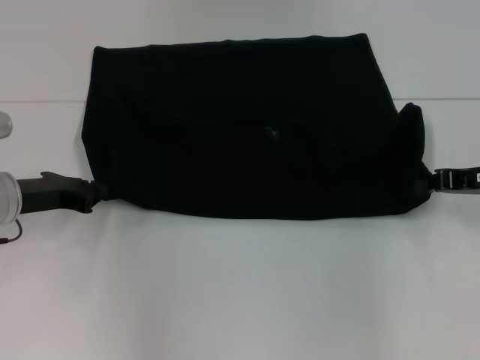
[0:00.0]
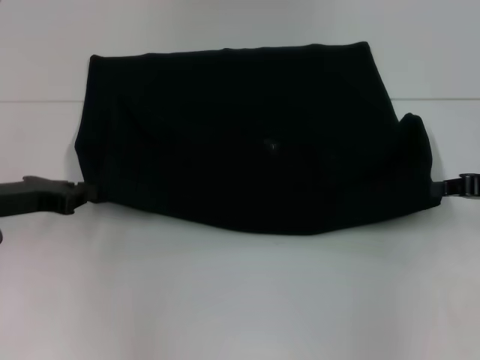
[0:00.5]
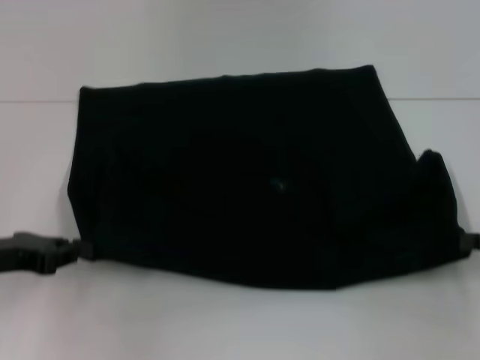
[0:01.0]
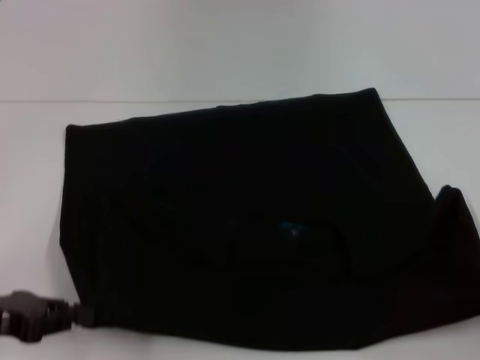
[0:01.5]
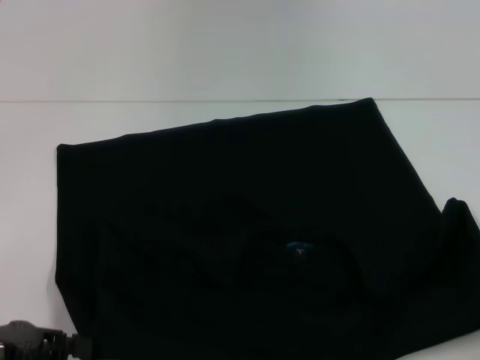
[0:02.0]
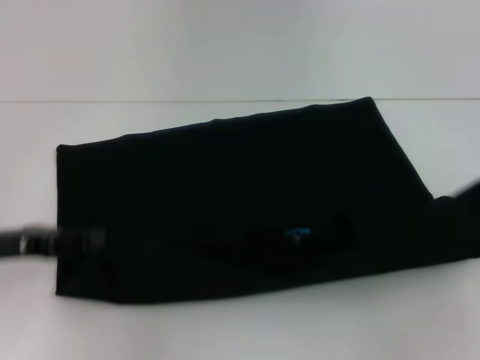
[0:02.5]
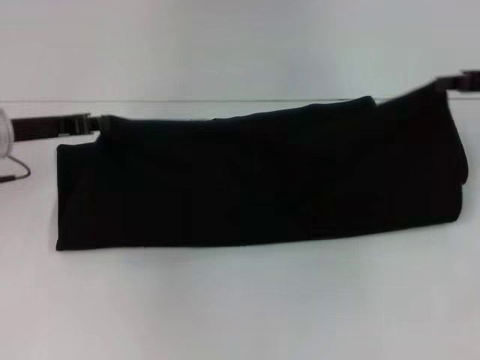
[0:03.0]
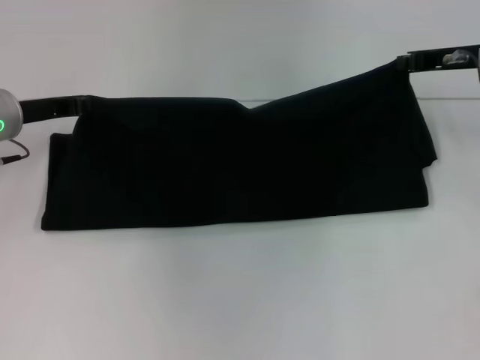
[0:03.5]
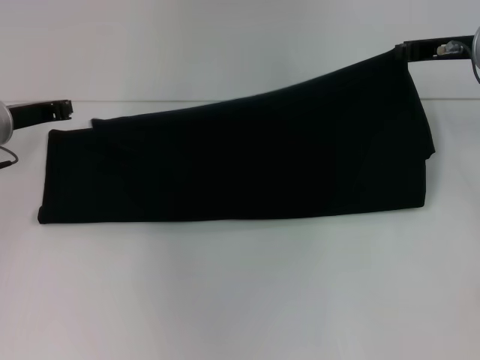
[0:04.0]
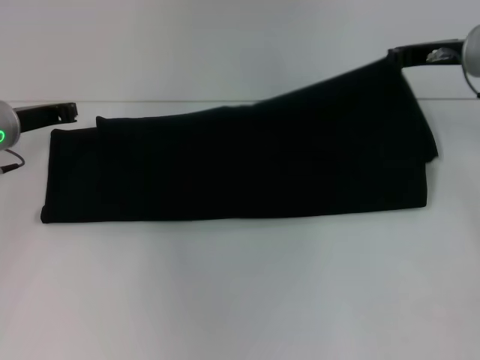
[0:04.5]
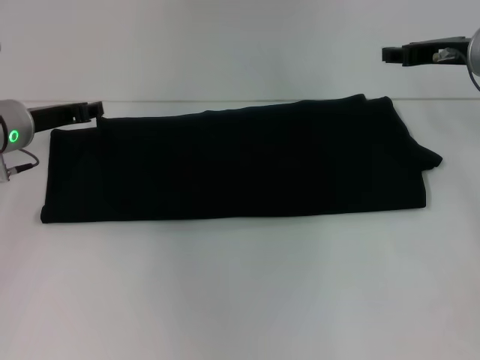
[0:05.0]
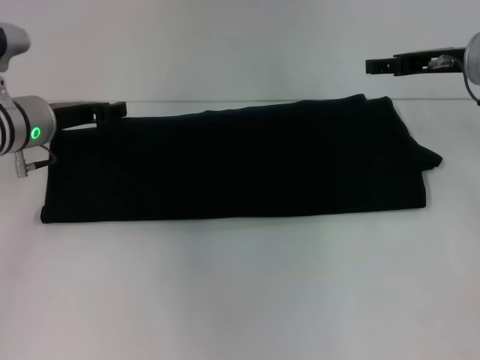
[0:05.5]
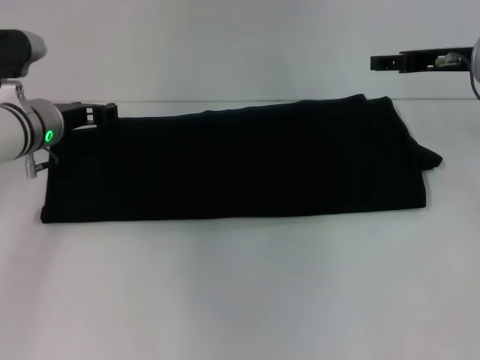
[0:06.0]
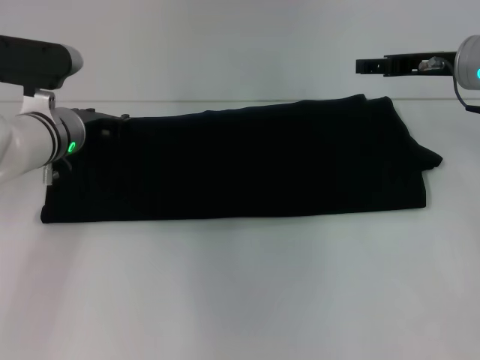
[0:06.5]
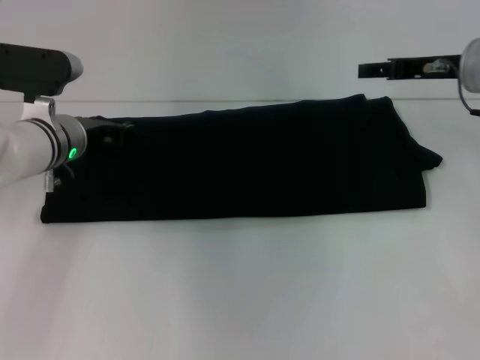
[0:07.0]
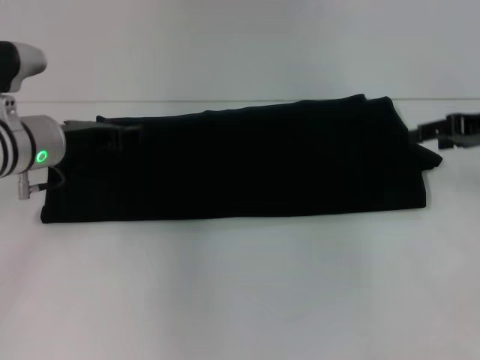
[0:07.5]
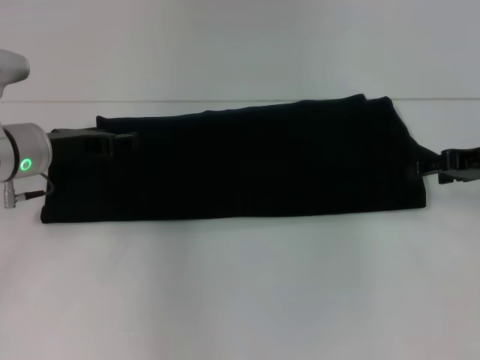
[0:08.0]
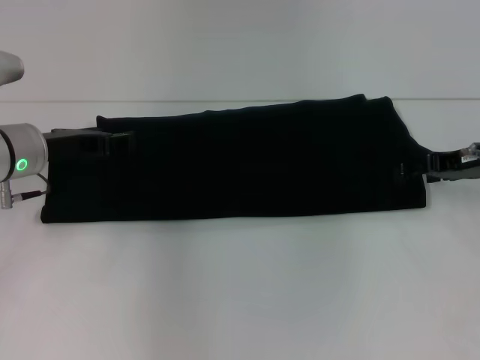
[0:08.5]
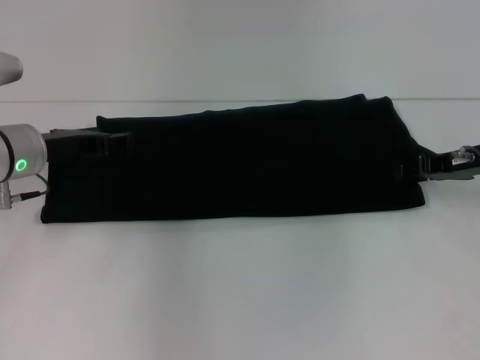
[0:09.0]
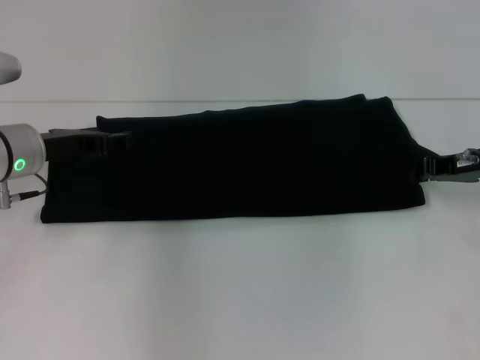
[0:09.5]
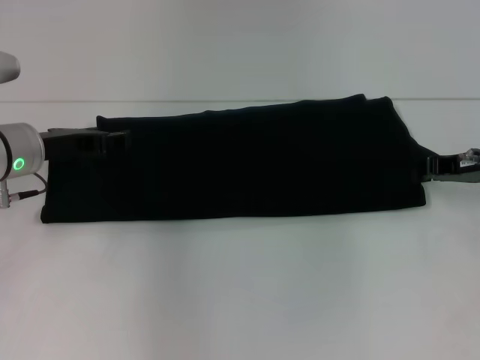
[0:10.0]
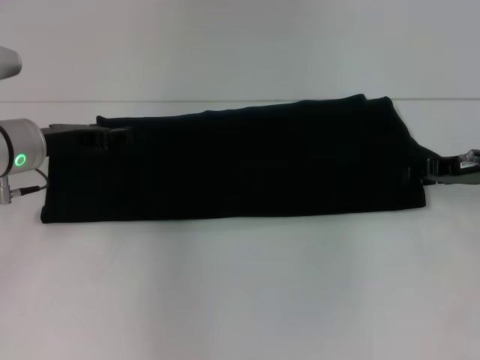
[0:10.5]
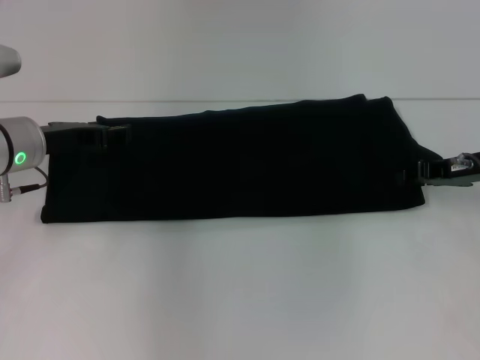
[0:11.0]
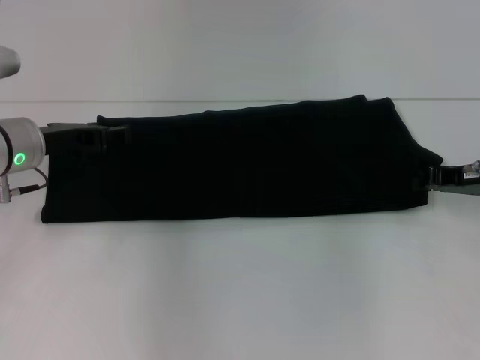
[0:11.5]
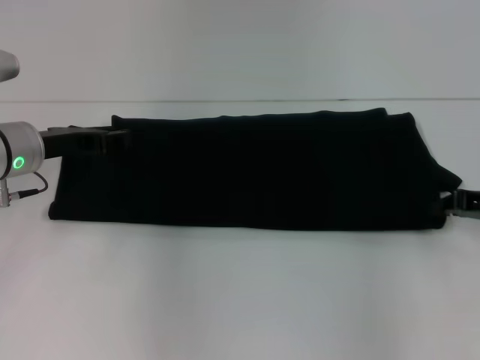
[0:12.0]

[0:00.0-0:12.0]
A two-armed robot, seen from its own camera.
Step, 2.0 to 5.0 s: Fold the clothes with your right hand.
0.0 to 2.0 s: The right gripper heads backward and to the right, covering approximately 20 cm; the left gripper goes roughly 15 cm backward.
2.0 to 4.0 s: The right gripper goes some 30 cm forward and to the left. Meanwhile the left gripper moves forward, some 20 cm.
4.0 to 6.0 s: The right gripper opens, while the left gripper travels to the right by about 5 cm, and opens its fingers.
6.0 to 8.0 s: The right gripper goes about 10 cm backward and to the right.
8.0 to 10.0 s: The right gripper closes.
10.0 to 12.0 s: The right gripper ends up roughly 5 cm from where it was, and opens, then closes again.

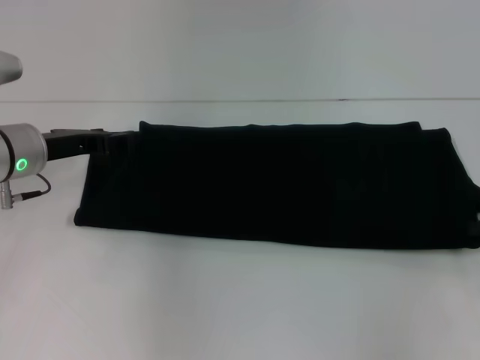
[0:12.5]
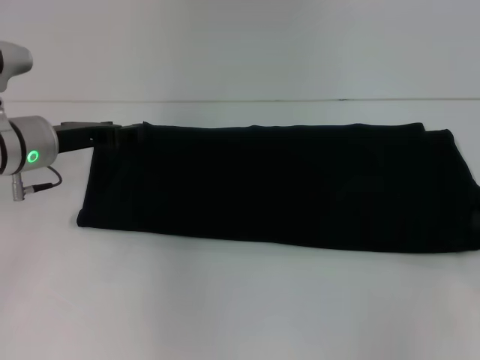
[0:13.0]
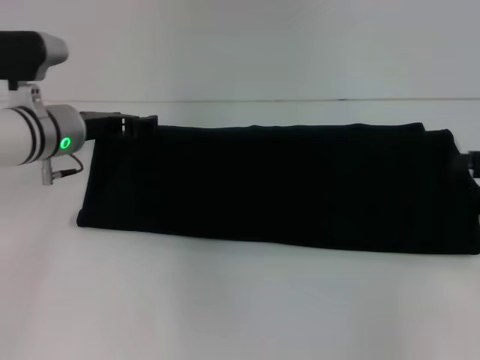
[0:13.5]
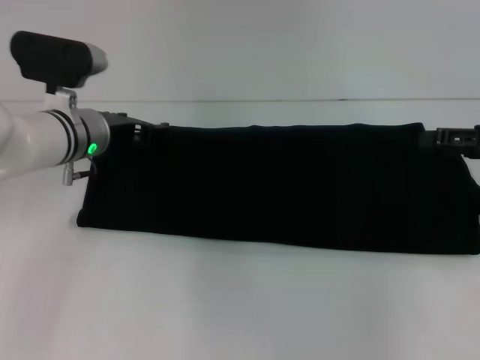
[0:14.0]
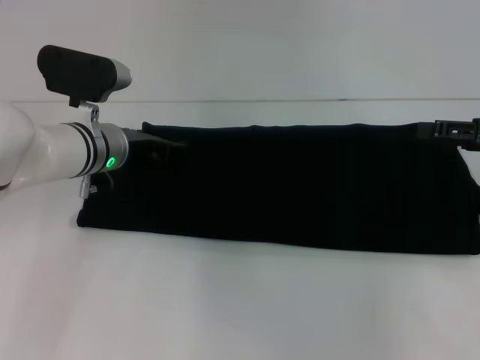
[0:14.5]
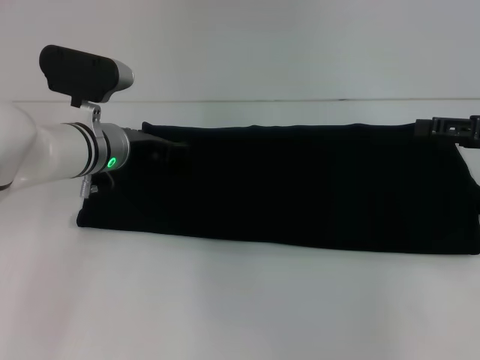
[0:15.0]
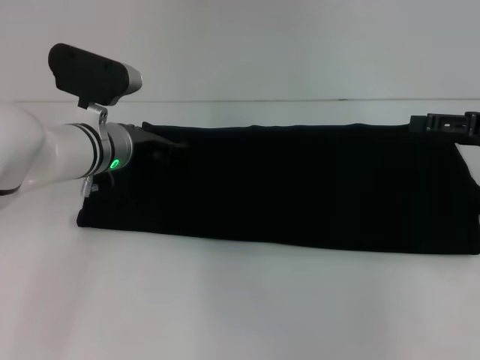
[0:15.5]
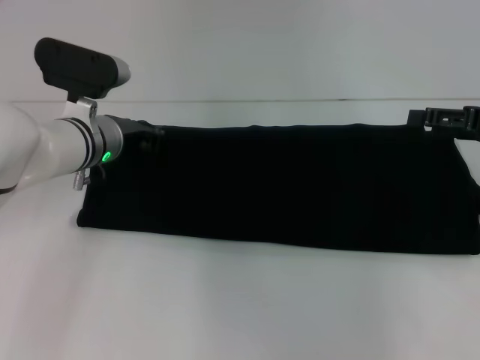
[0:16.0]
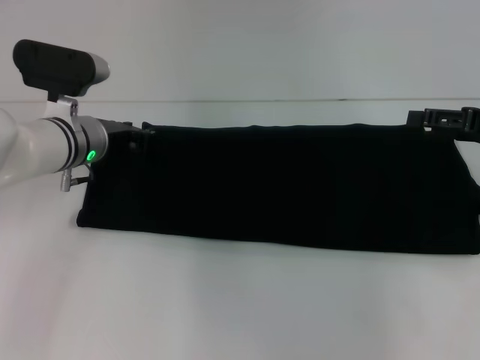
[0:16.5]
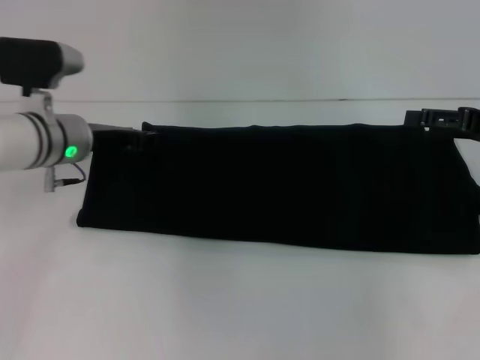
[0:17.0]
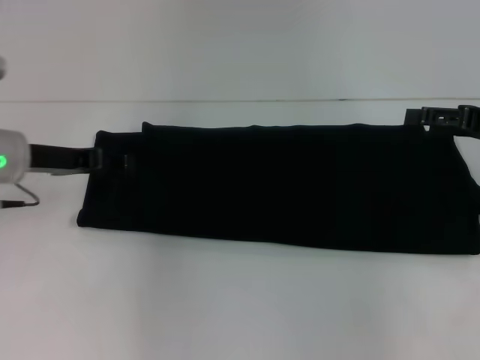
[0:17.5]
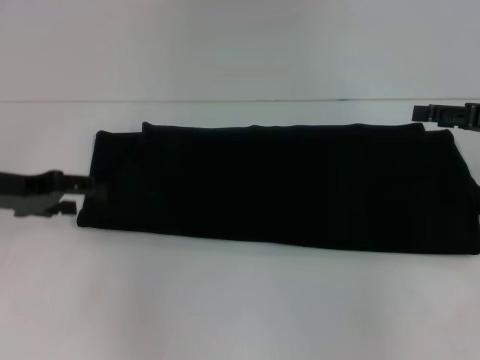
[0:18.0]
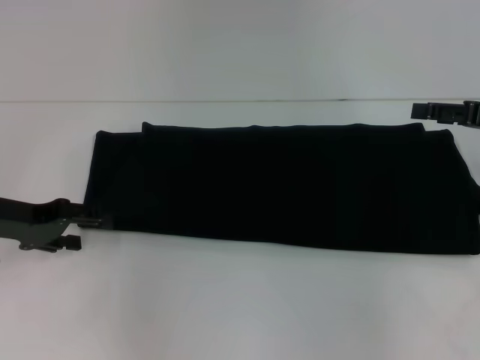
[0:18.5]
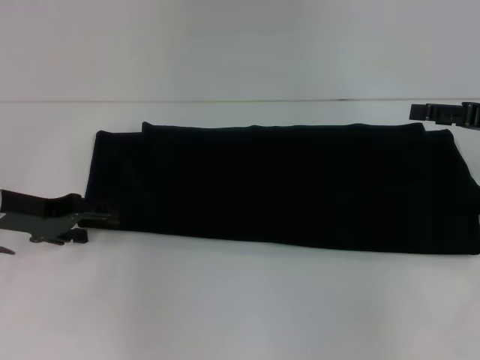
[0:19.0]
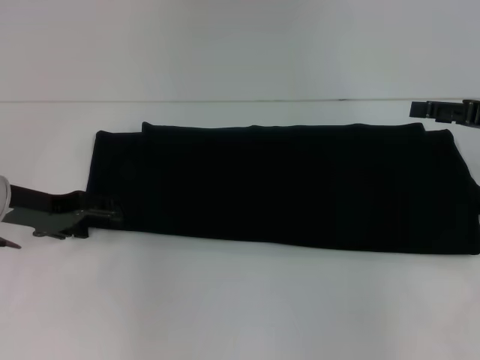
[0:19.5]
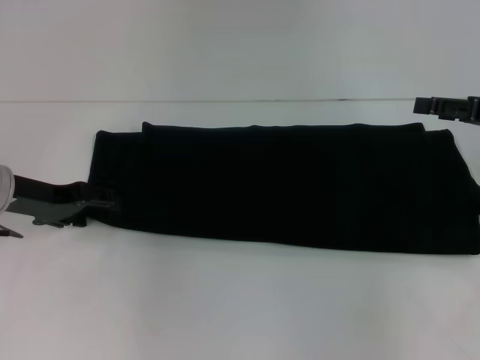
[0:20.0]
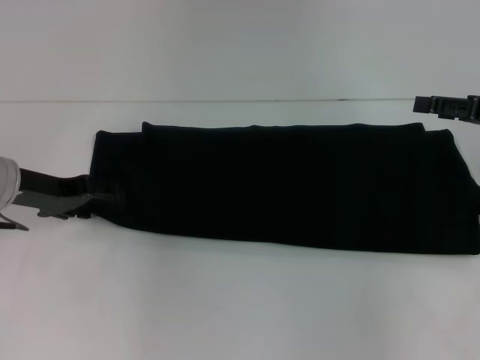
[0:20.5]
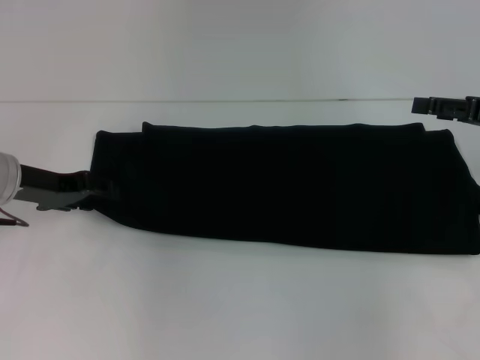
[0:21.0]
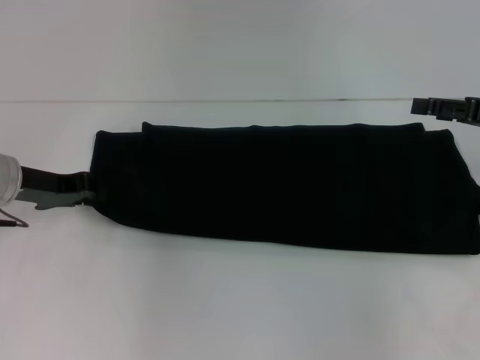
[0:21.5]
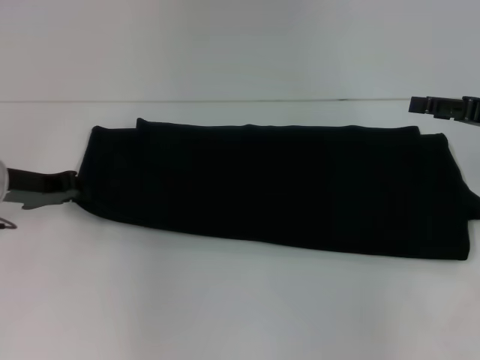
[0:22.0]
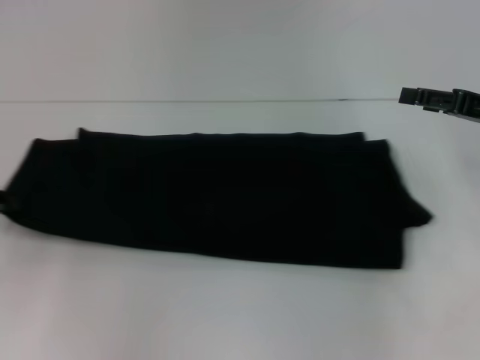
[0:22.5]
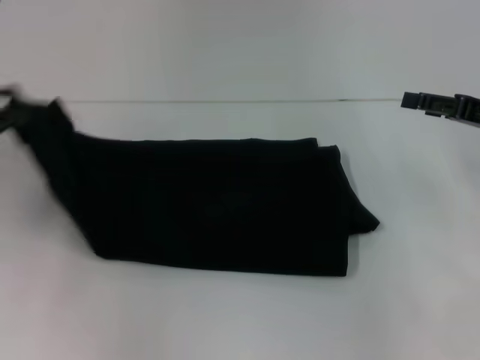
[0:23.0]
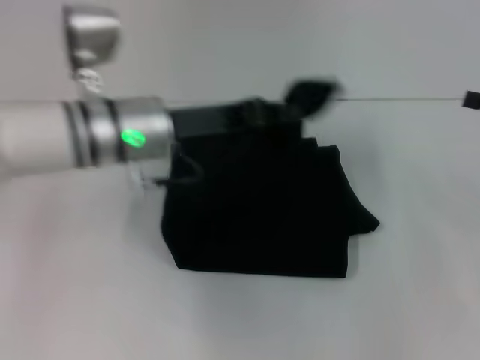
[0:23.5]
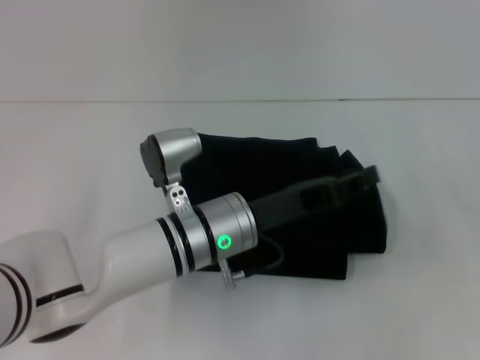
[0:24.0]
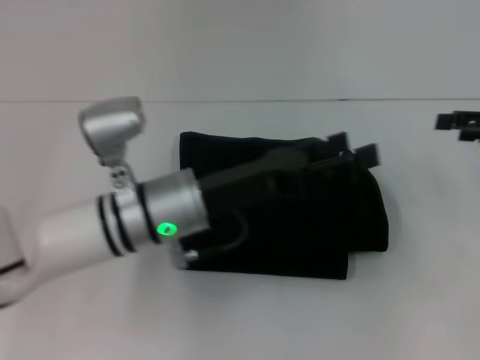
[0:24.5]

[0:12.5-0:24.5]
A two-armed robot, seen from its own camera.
12.5 to 14.5 s: The left gripper moves to the right, about 10 cm. Meanwhile the right gripper heads upward, covering approximately 5 cm, and opens up.
14.5 to 16.5 s: The left gripper closes.
16.5 to 18.5 s: The left gripper moves to the left and backward, approximately 15 cm, and opens its fingers.
18.5 to 20.5 s: There are only small adjustments of the grippers.
20.5 to 22.5 s: The left gripper travels to the left and backward by some 10 cm, and closes up.
22.5 to 24.5 s: The left gripper travels to the right by some 30 cm, and opens up.

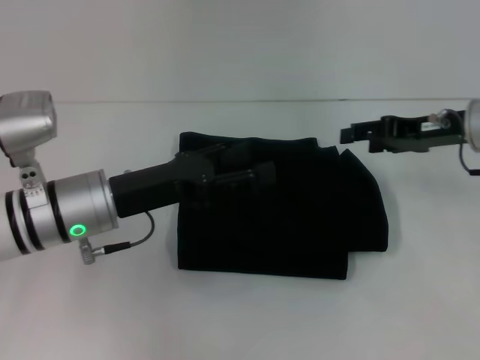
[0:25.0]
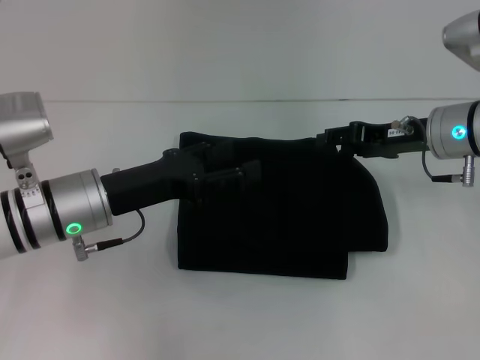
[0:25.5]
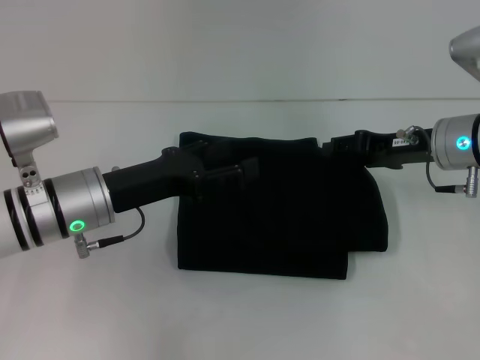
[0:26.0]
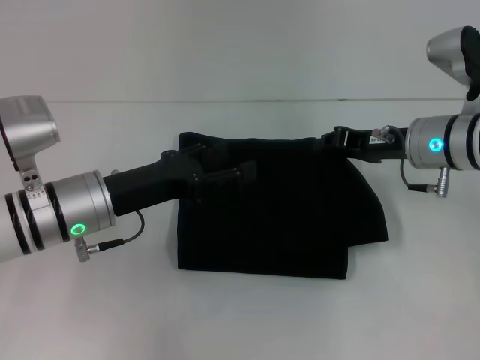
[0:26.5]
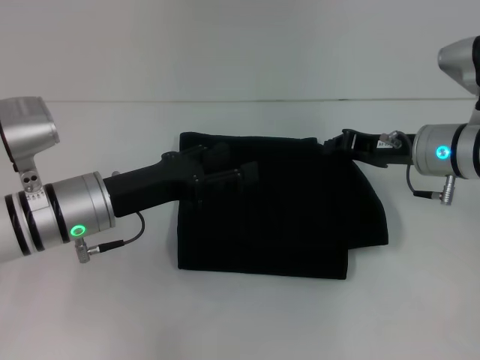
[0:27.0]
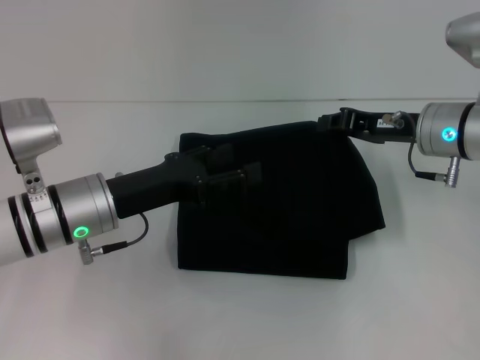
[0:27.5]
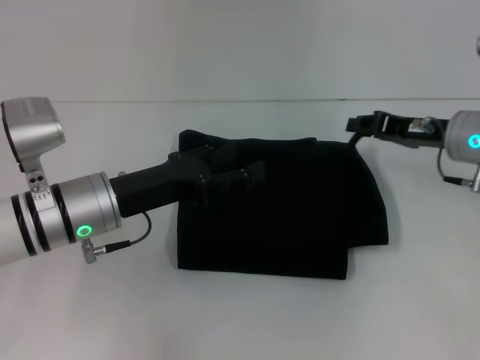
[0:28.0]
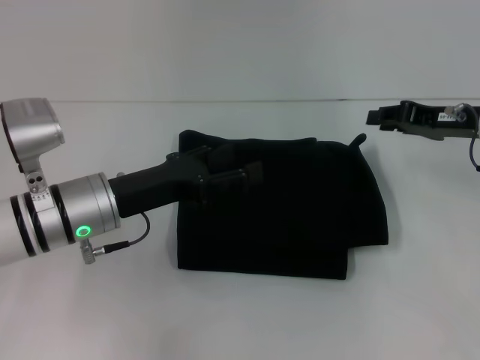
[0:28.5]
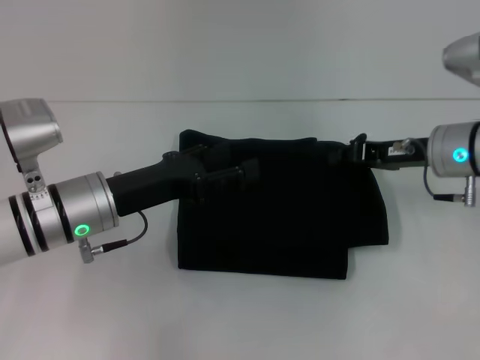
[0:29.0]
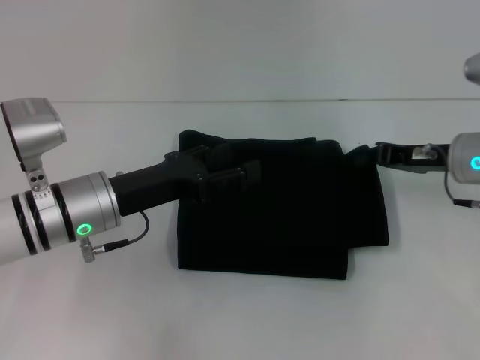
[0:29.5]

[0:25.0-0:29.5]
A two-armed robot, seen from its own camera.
25.0 to 27.0 s: The right gripper shifts by approximately 5 cm, and closes its fingers.
